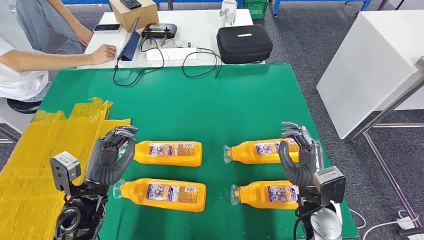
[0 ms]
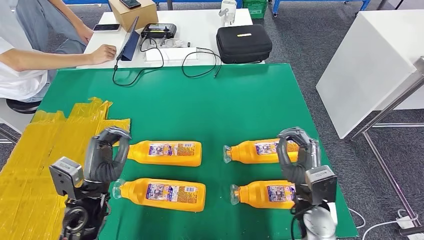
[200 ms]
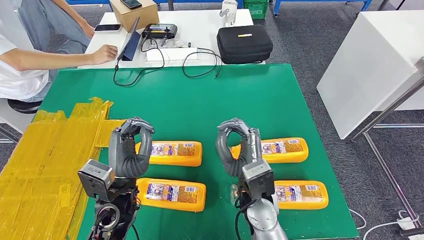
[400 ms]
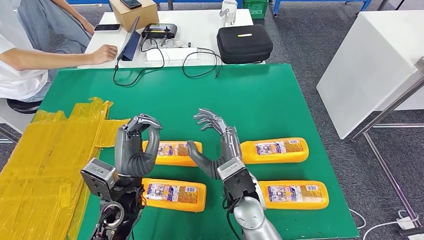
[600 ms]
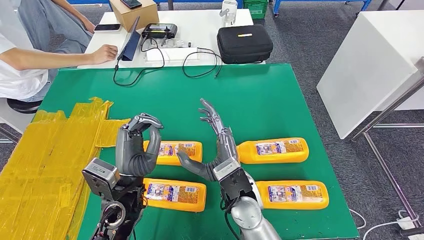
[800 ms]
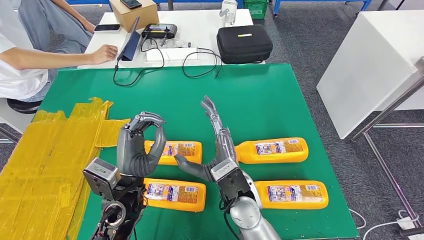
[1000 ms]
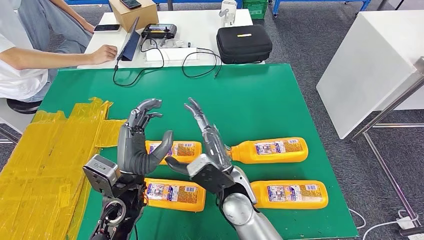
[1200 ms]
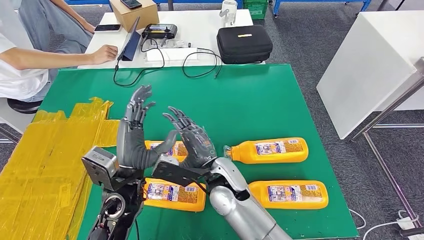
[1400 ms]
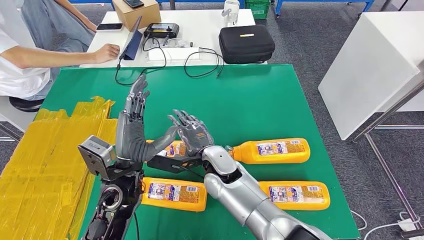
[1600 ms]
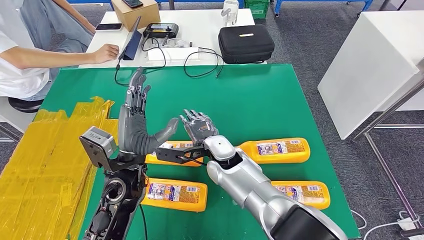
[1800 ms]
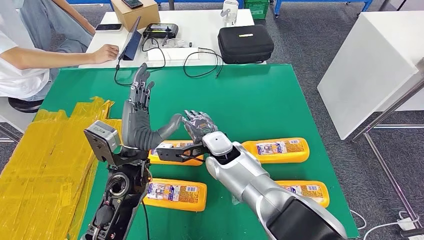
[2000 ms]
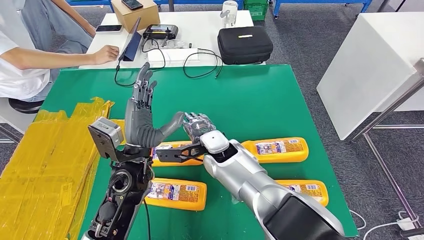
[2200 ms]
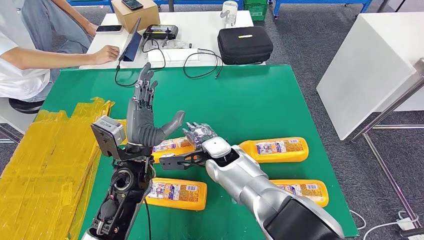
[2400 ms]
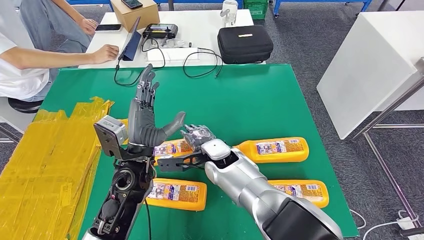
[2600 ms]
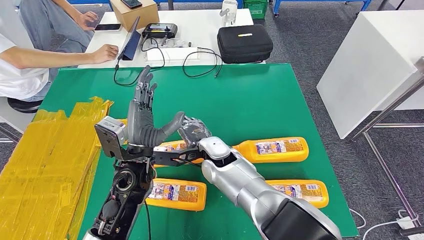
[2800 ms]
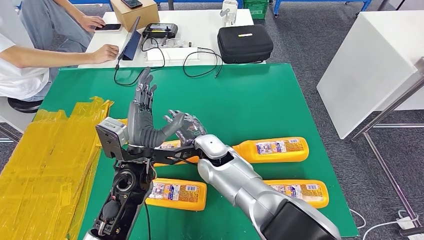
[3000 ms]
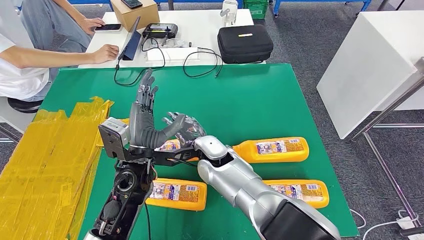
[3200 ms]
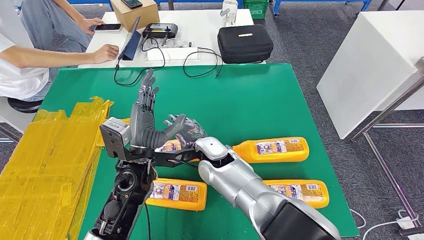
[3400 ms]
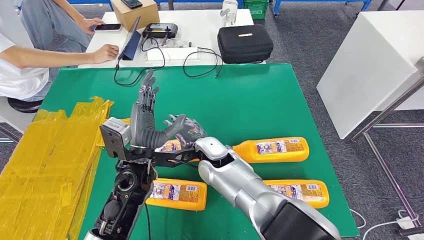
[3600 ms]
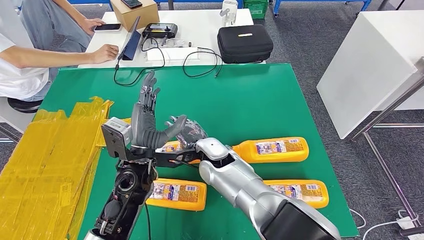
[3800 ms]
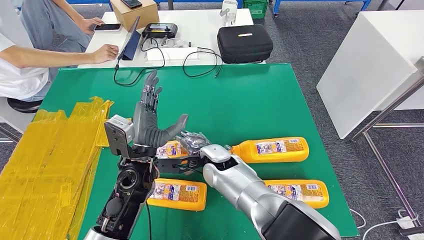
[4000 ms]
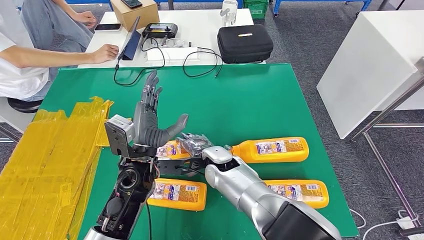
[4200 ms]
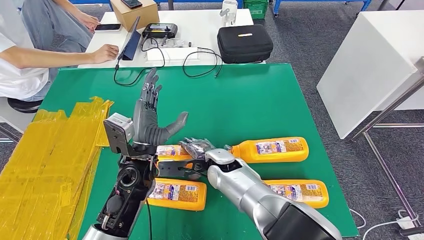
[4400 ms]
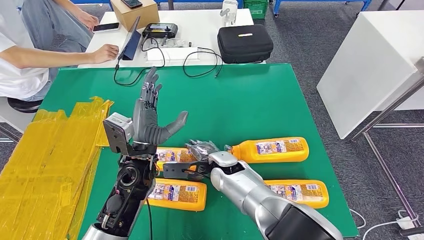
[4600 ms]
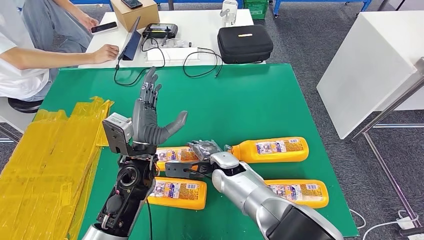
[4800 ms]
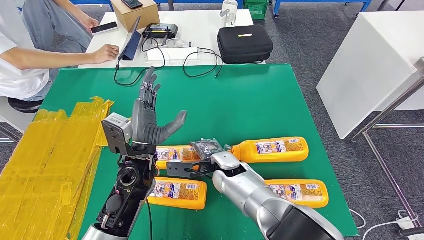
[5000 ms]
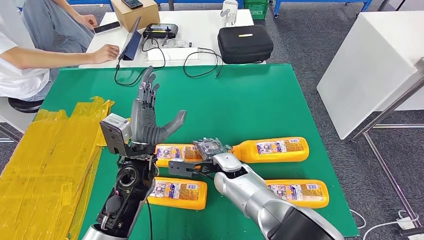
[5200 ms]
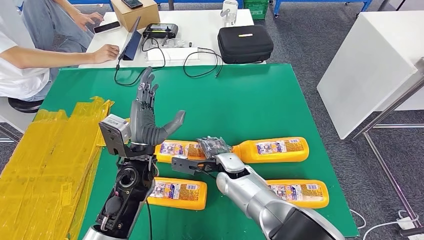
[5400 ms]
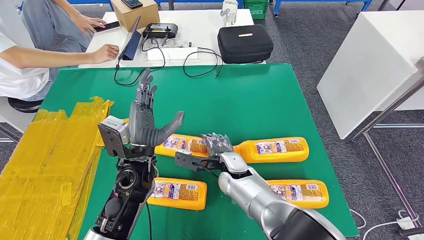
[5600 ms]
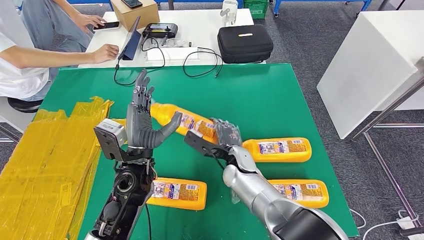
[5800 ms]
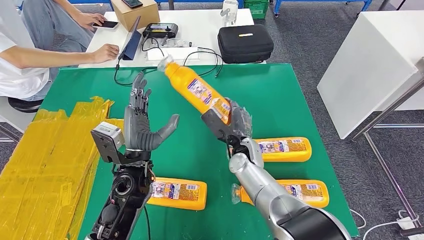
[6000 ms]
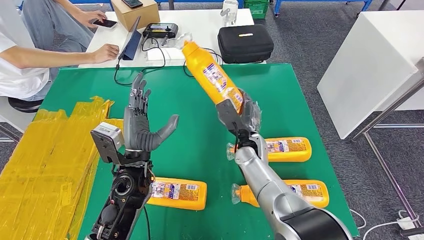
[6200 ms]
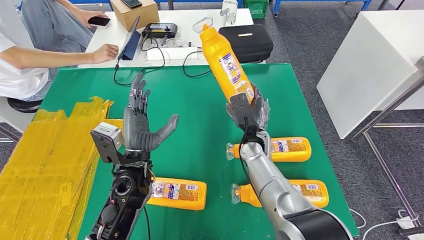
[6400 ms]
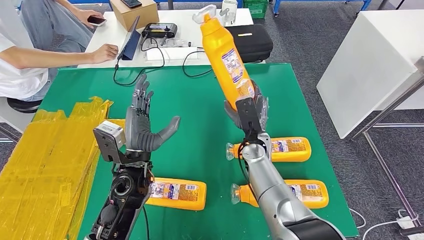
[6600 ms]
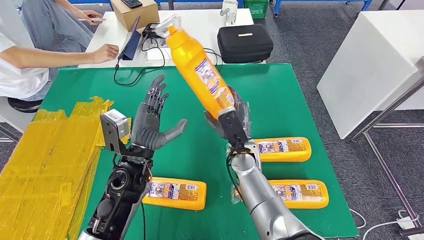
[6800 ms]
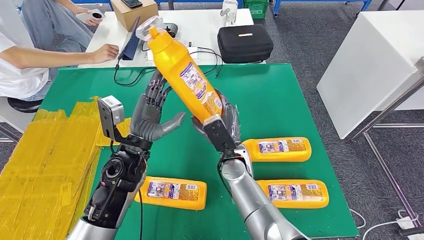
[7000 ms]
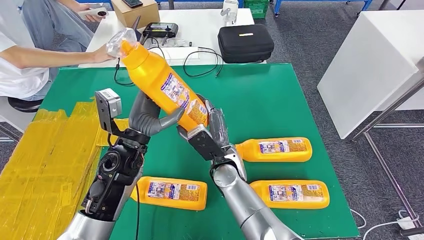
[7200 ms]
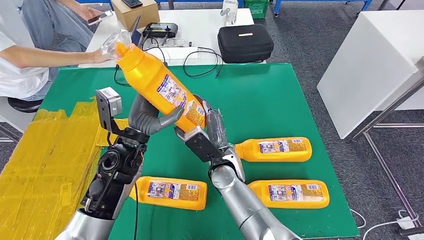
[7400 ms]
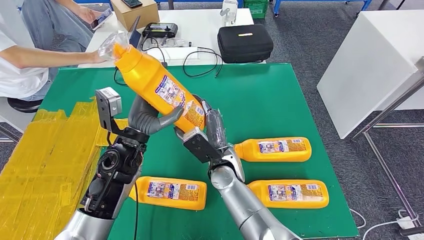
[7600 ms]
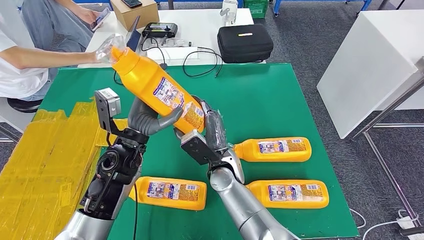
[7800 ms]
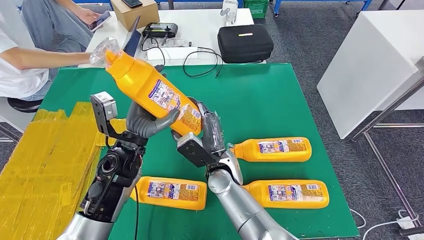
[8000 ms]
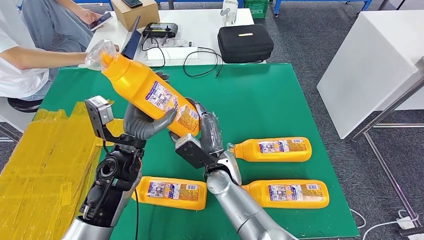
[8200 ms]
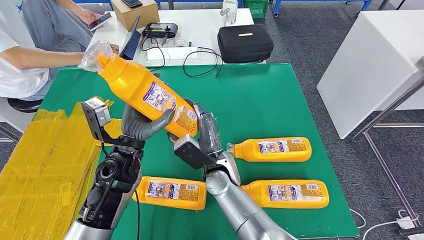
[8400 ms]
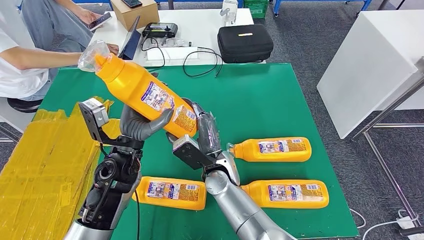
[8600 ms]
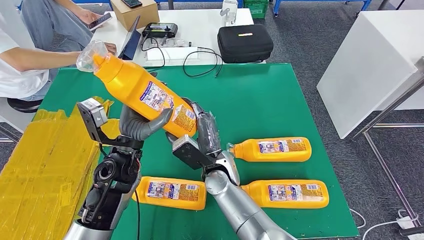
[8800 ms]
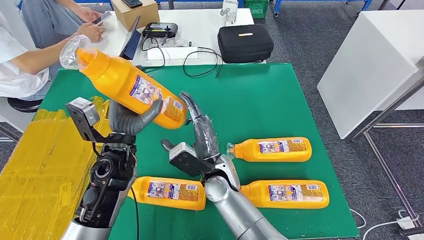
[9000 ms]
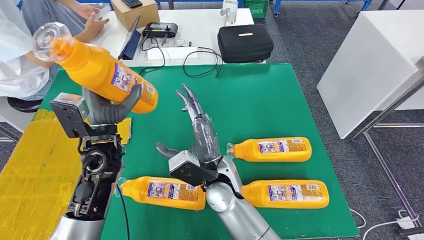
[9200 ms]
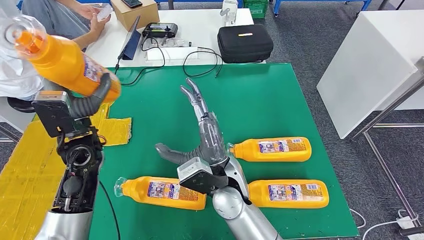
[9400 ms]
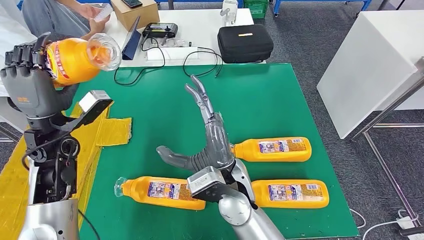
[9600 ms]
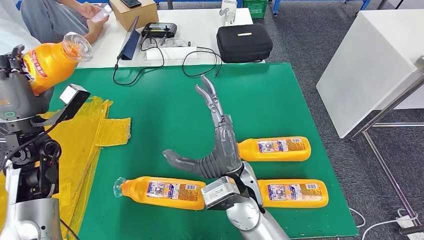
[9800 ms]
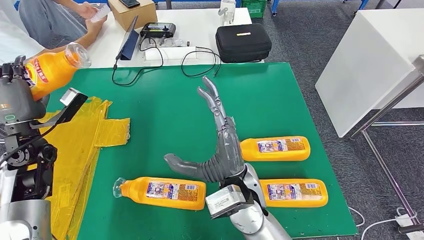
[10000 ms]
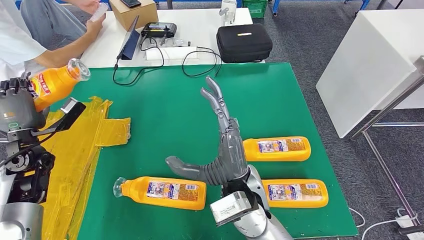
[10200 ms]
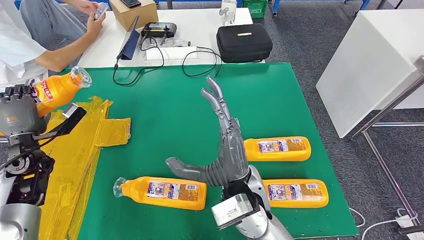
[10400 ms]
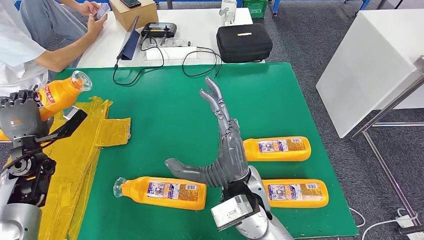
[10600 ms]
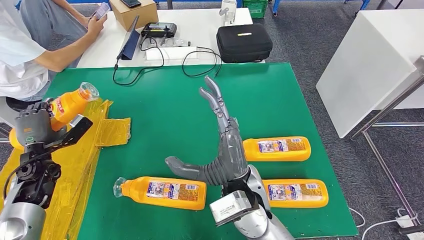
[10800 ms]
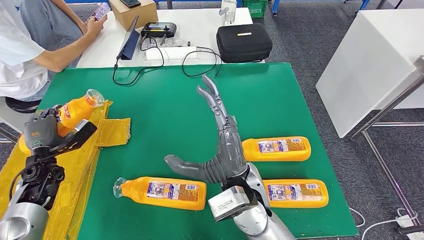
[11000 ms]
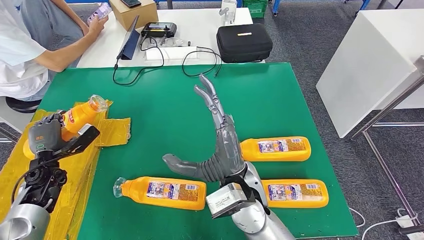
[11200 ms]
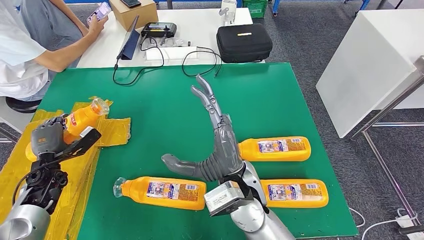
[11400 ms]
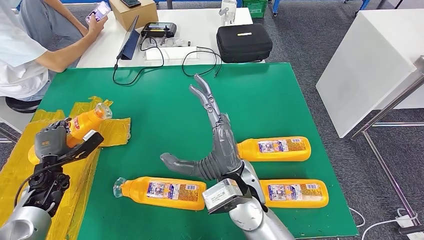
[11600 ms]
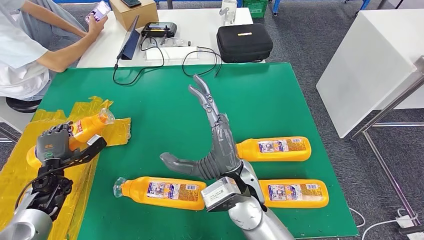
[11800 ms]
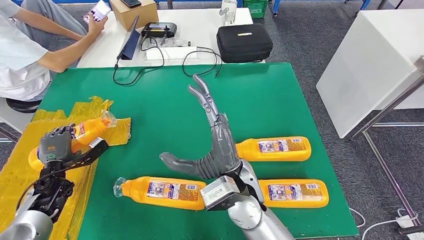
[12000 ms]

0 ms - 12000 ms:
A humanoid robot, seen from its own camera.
Step, 0 ms - 8400 ms: Take the fast-moving consumer goods bottle from the table.
3000 ms - 4400 ms: The right hand ends up about 5 cm from where it was.
4400 ms - 6000 ms: The right hand goes approximately 5 cm to the right.
7600 ms - 9000 ms: There are only small adjustments of the hands.
10400 ms - 12000 ms: The left hand is displaced downward by roughly 10 cm.

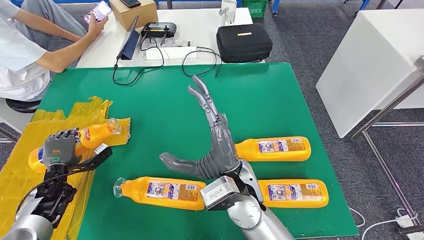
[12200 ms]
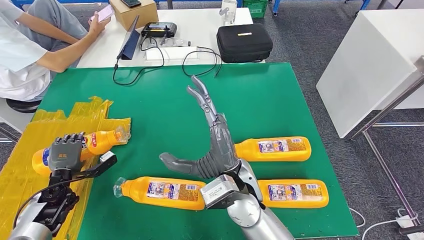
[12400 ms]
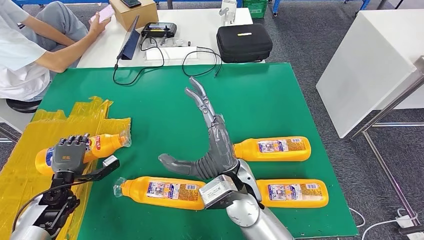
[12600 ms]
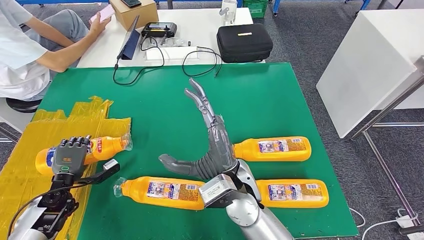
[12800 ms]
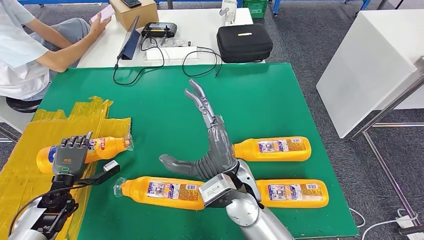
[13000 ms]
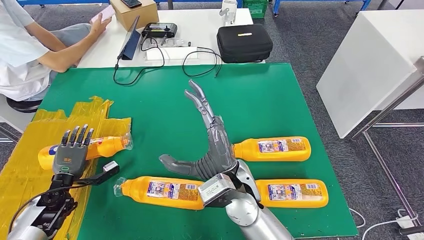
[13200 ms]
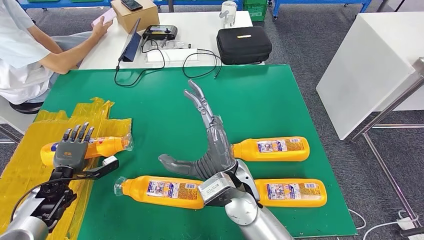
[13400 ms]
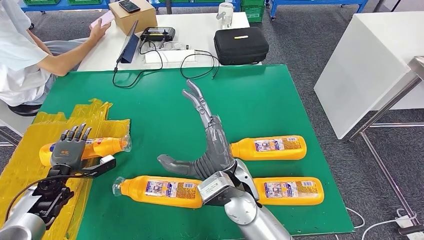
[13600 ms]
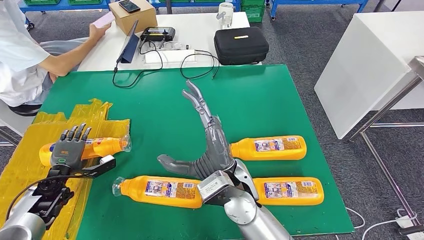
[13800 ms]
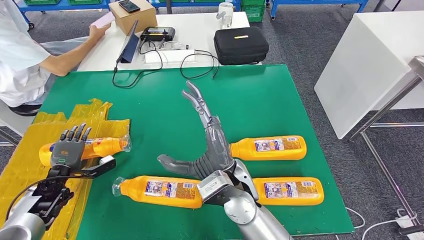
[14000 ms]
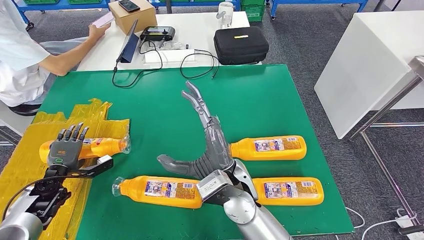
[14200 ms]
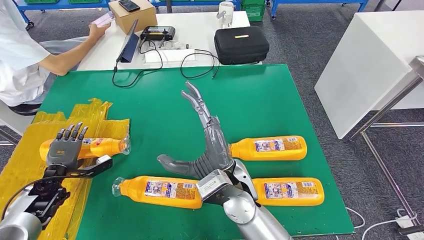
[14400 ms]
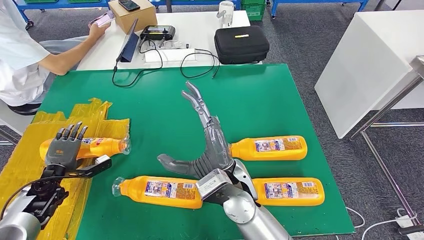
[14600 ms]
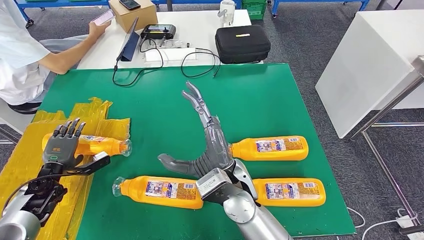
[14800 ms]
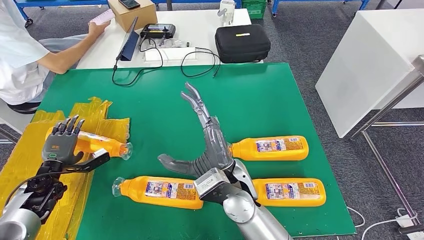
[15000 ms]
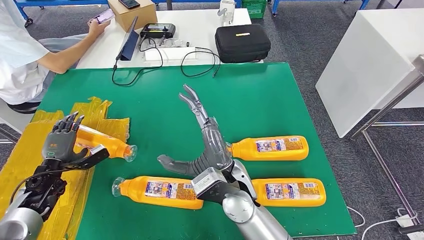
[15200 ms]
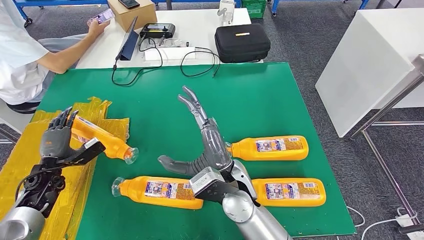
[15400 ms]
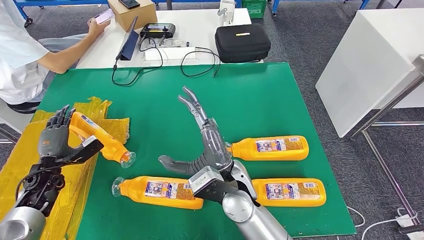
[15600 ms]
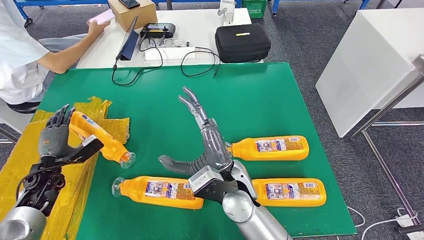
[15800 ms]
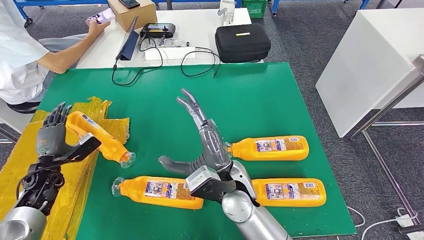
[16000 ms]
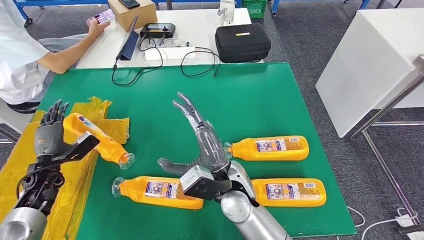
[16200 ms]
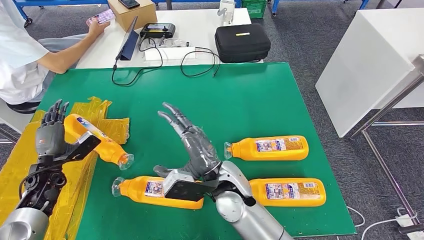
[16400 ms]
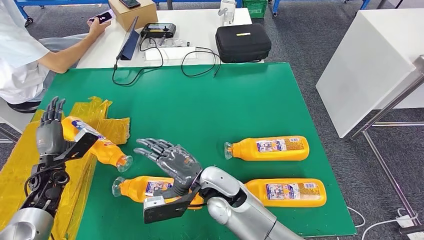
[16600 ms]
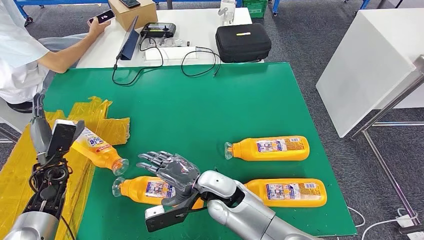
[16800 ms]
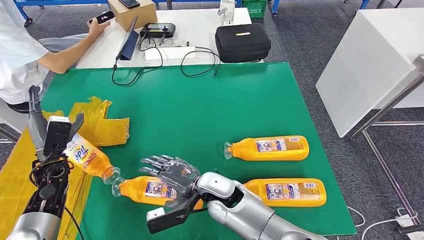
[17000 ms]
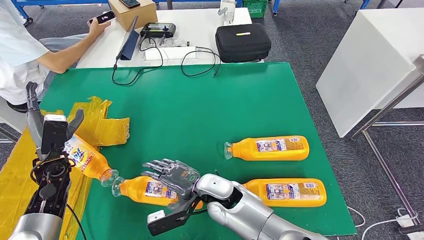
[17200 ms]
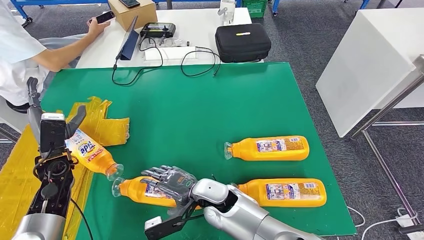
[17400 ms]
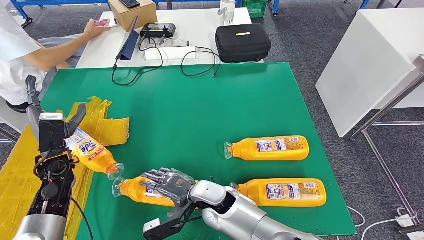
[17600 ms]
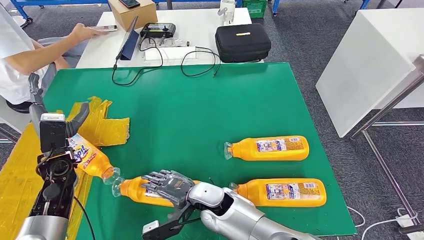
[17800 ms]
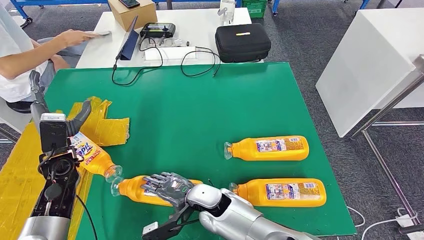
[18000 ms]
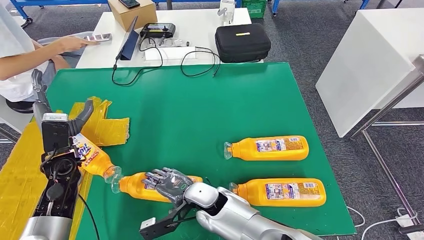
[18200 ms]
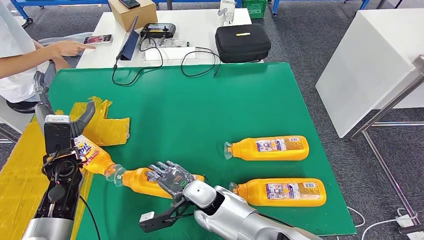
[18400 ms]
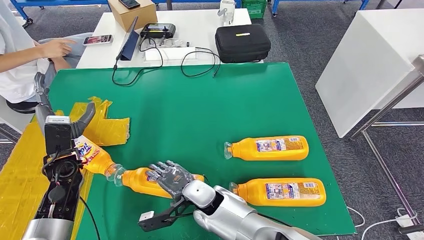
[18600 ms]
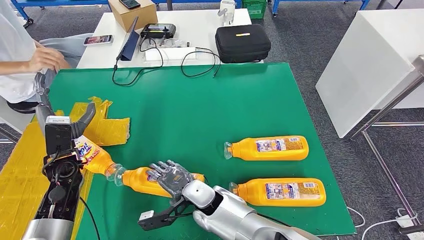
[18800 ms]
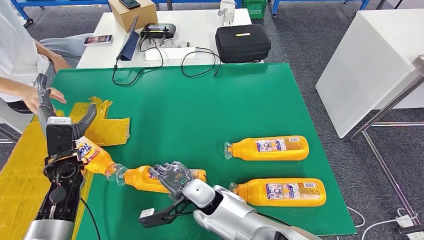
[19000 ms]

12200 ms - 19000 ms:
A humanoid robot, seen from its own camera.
Step, 12200 ms - 14400 ms: Flip the fast-moving consumer goods bottle to the front side.
13600 ms - 15000 ms: The hands stay close to where they were, moving slightly.
16200 ms - 17600 ms: The left hand is displaced to the right and upward by some 10 cm; the right hand moves downward, about 10 cm.
